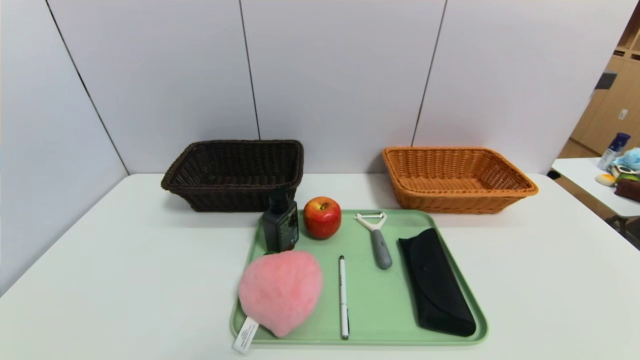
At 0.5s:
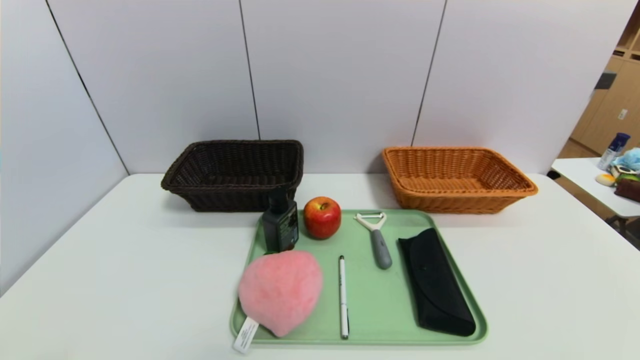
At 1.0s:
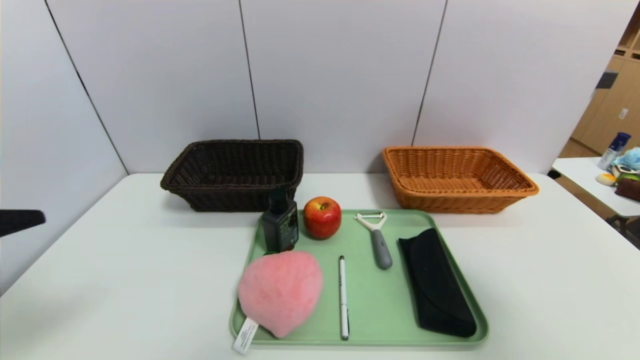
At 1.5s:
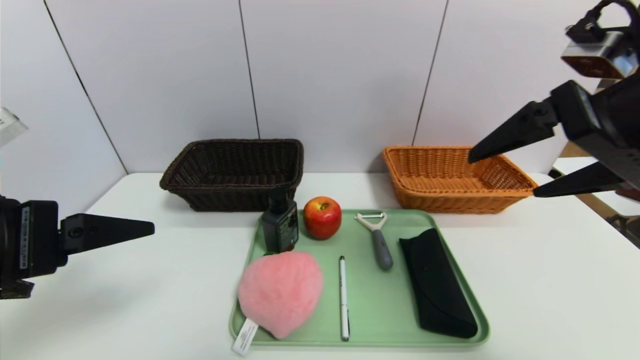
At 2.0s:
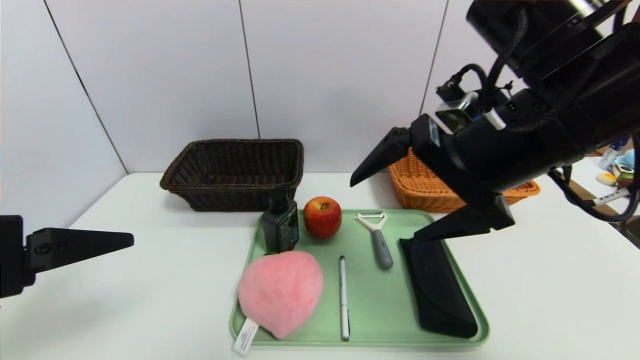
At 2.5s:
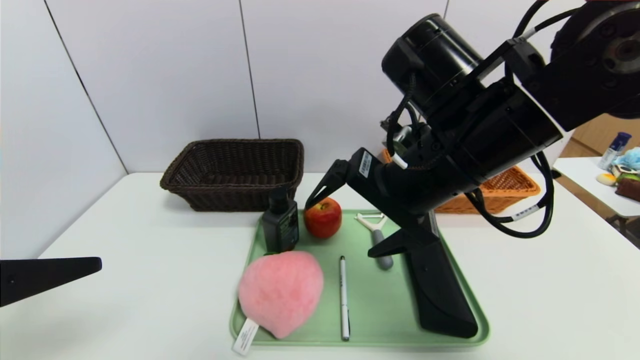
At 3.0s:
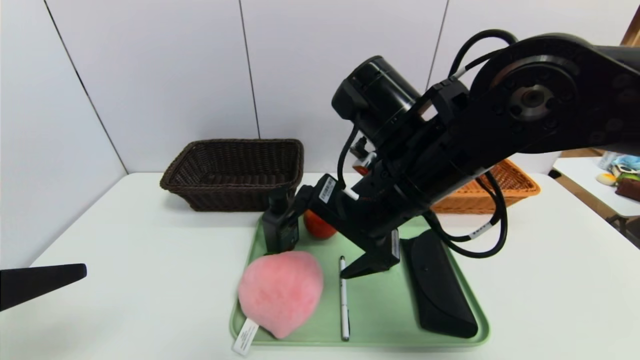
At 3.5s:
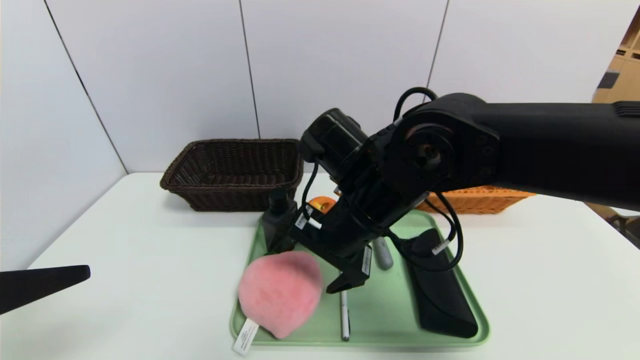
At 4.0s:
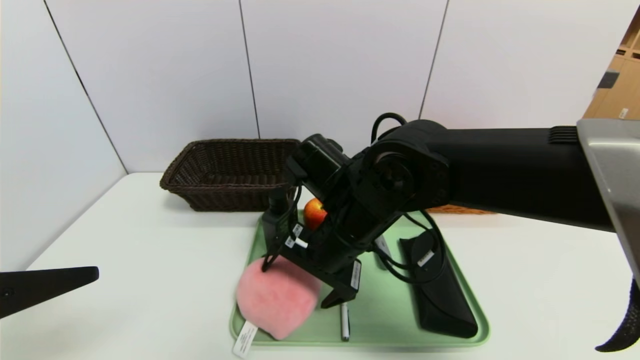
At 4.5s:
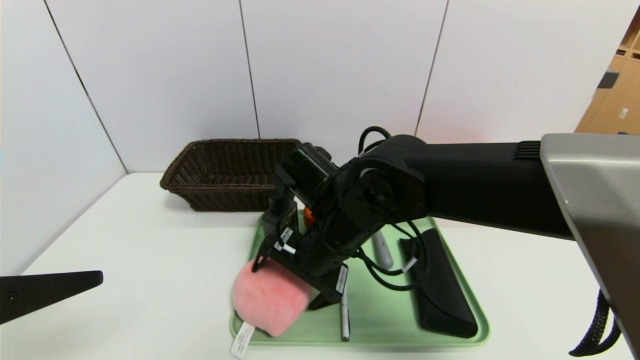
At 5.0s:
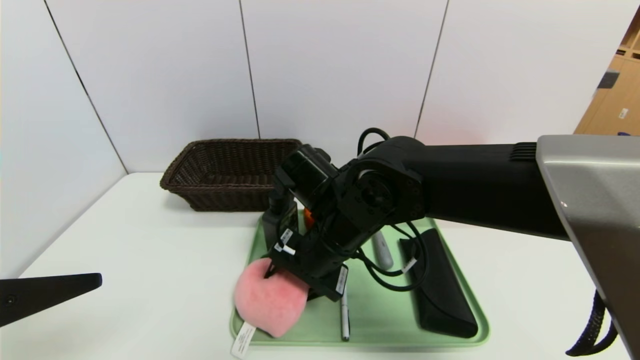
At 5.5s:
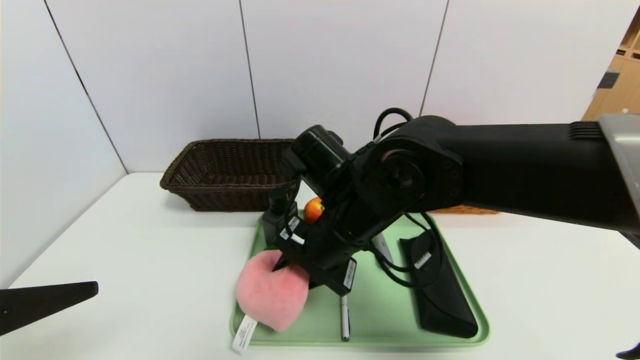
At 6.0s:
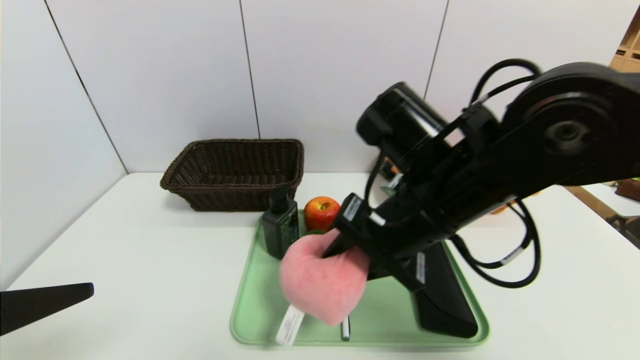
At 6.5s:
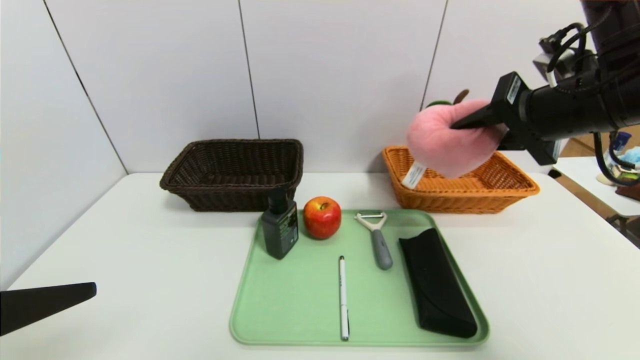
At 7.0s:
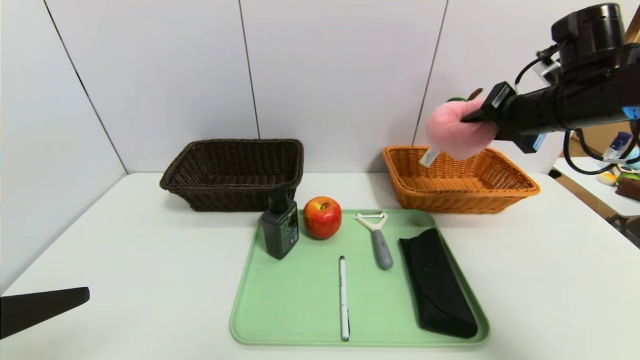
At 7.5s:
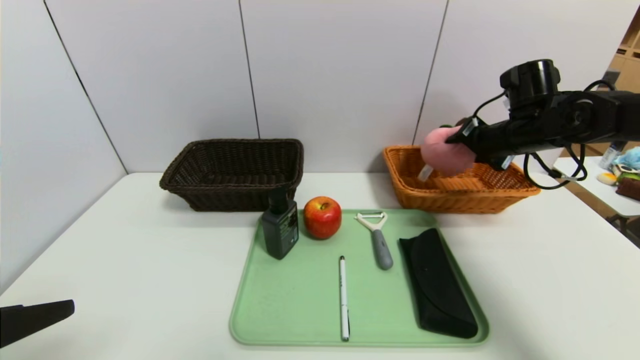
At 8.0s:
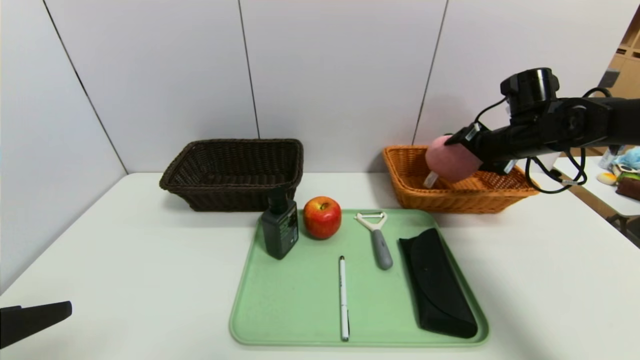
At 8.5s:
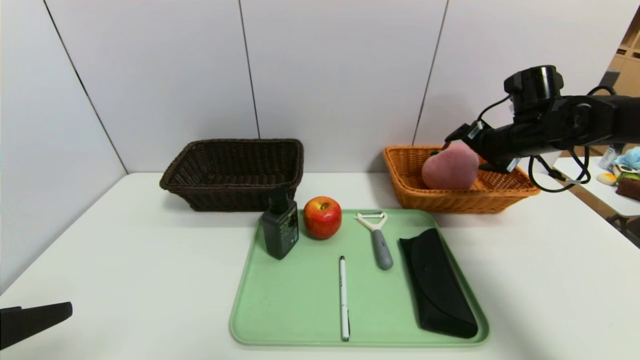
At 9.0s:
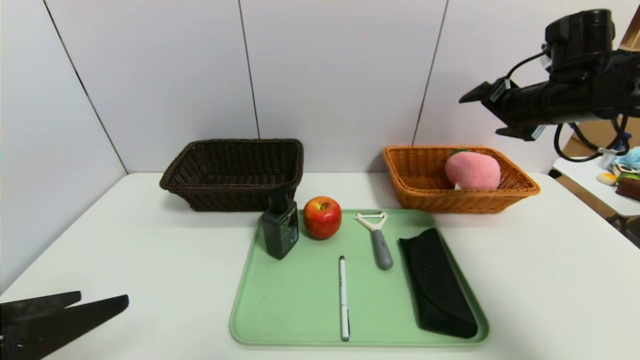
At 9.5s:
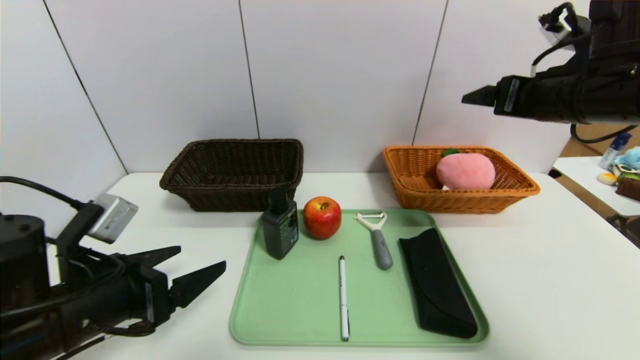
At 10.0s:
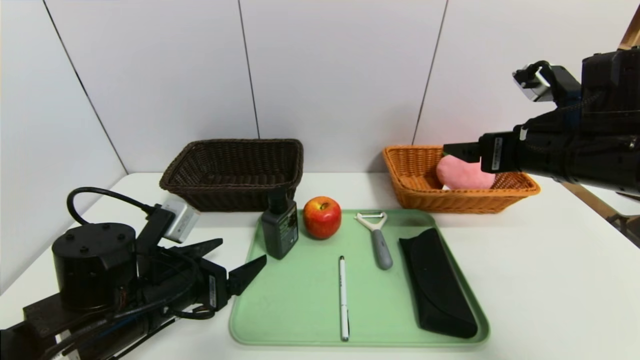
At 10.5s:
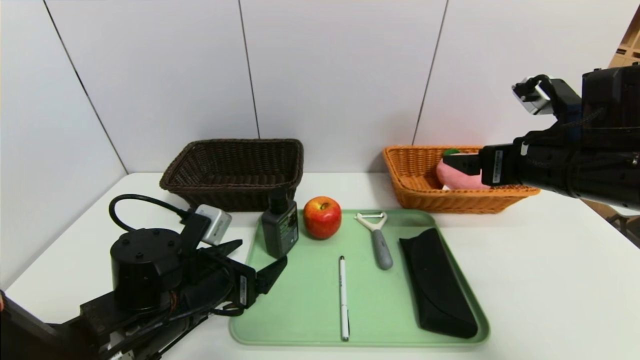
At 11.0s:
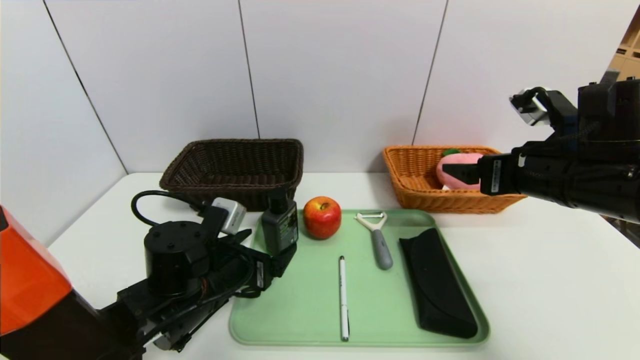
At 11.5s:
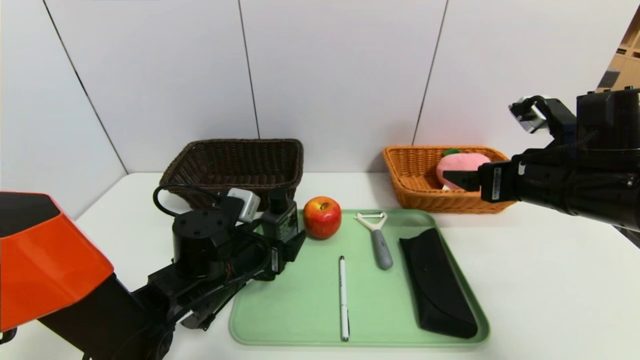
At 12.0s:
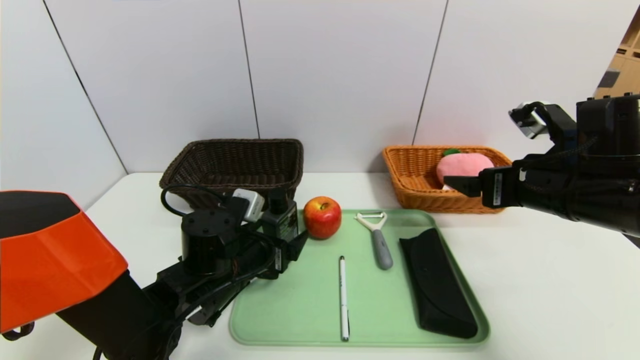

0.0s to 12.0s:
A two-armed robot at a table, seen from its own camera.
Task of the whole recording: place the food in the right basket with the right gripper, and place the non food items in the left basket with the left gripper.
Step, 0.0s to 8.5s: Grasp the peach doll and put it in the right basket.
0.0s to 2.0s: The left gripper travels upward and forward by some 25 cm. The right gripper goes some 40 cm upward, forward and to the left.
2.0s to 4.0s: The right gripper shifts approximately 20 cm downward and to the left.
4.0s to 6.0s: The right gripper travels to the right and upward by roughly 10 cm, and closes its fingers.
6.0s to 8.0s: The right gripper shifts roughly 30 cm to the right and forward, and opens its fingers.
8.0s to 10.0s: The left gripper goes approximately 25 cm forward, downward and to the right. Meanwhile the right gripper heads backward, covering roughly 15 cm.
10.0s to 12.0s: The left gripper goes some 10 cm to the right and forward.

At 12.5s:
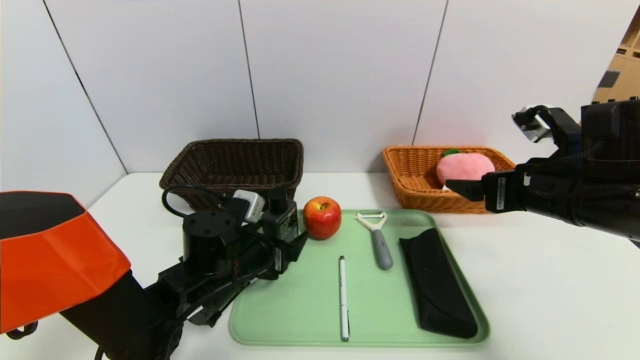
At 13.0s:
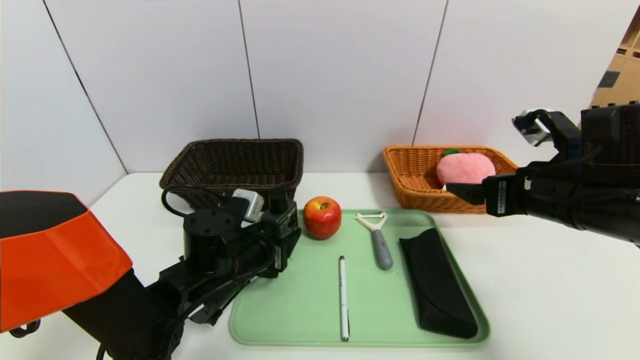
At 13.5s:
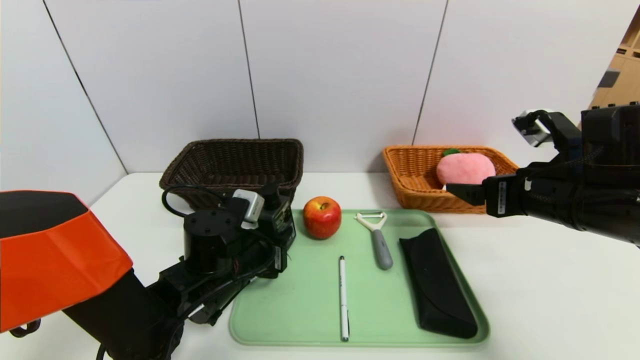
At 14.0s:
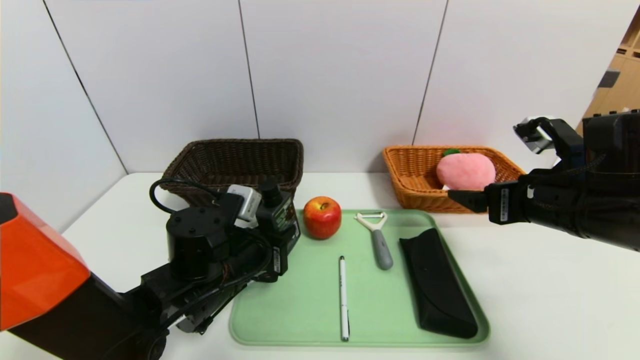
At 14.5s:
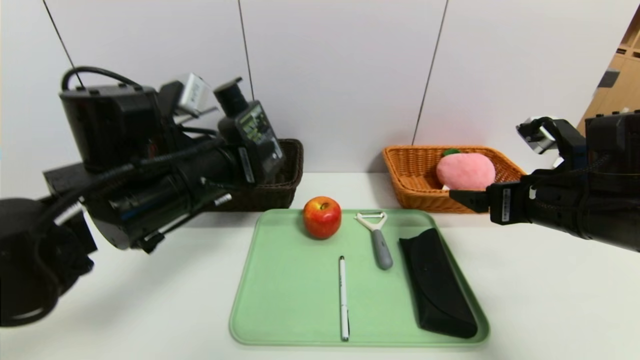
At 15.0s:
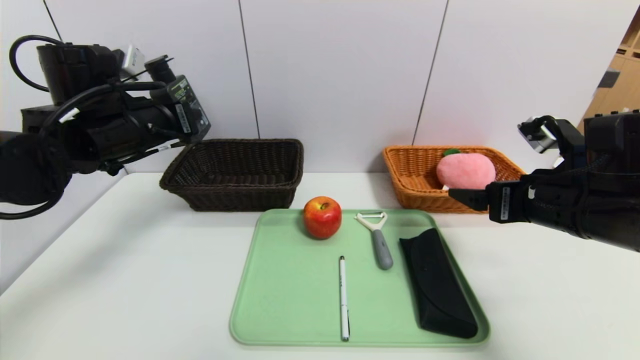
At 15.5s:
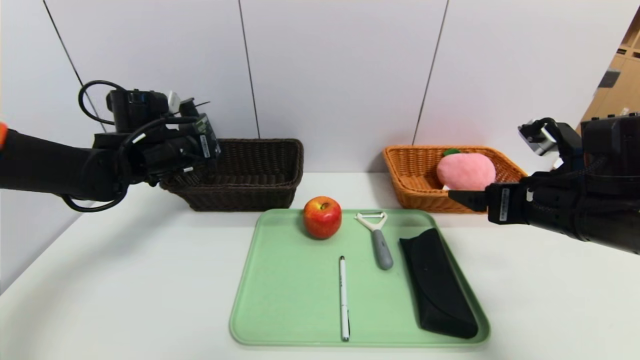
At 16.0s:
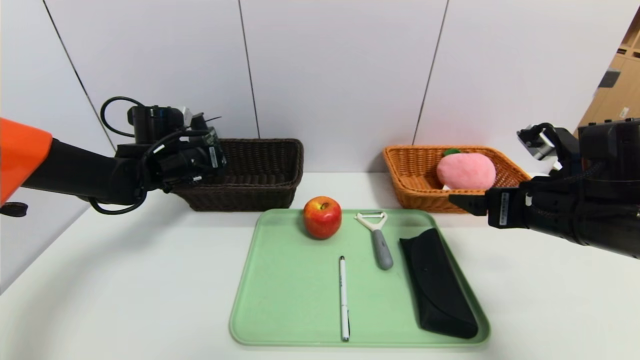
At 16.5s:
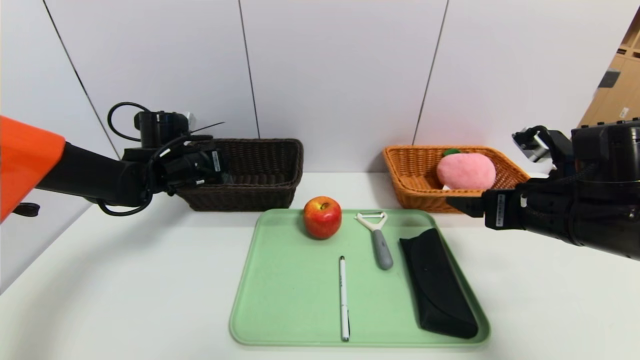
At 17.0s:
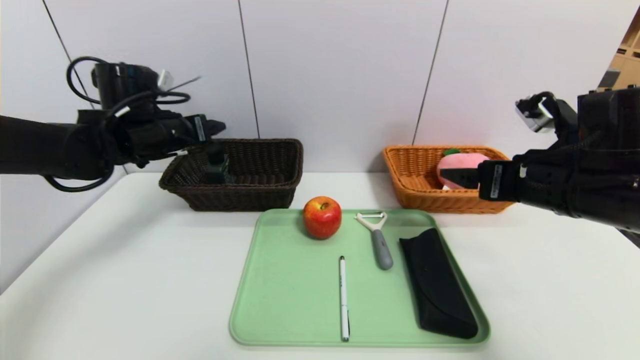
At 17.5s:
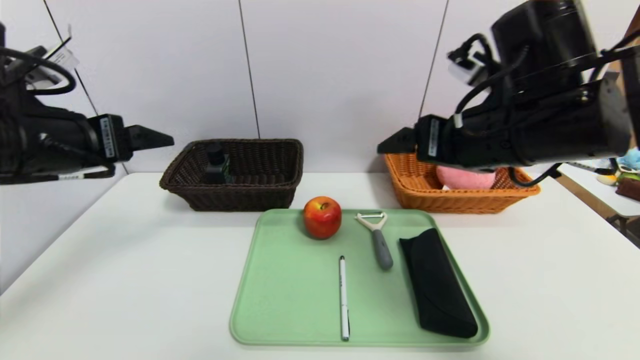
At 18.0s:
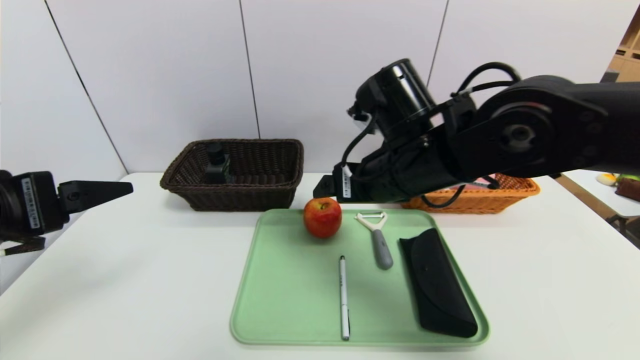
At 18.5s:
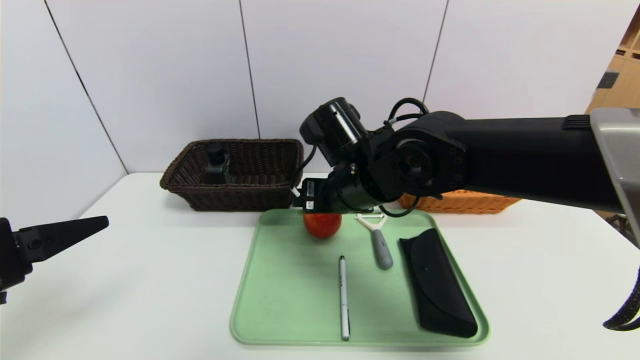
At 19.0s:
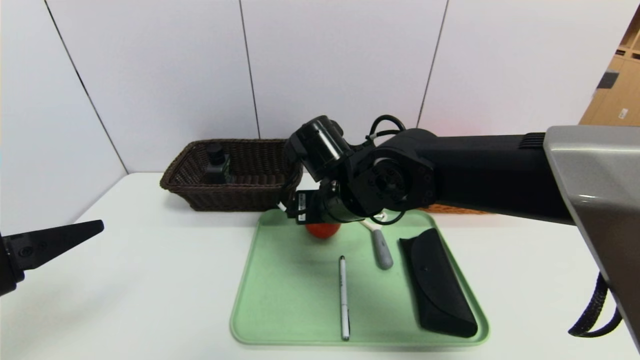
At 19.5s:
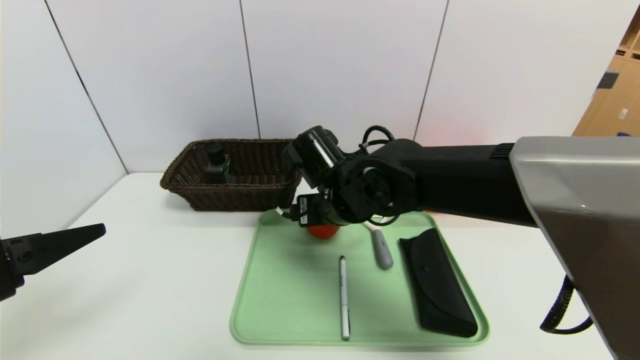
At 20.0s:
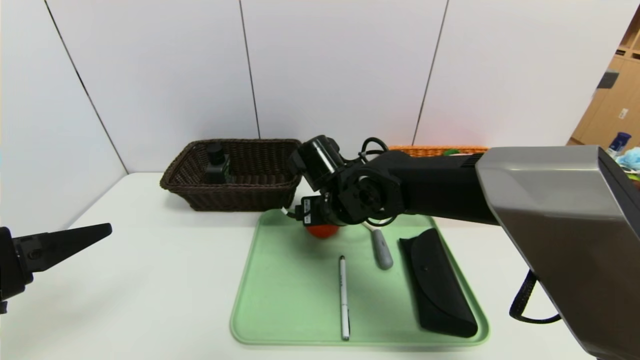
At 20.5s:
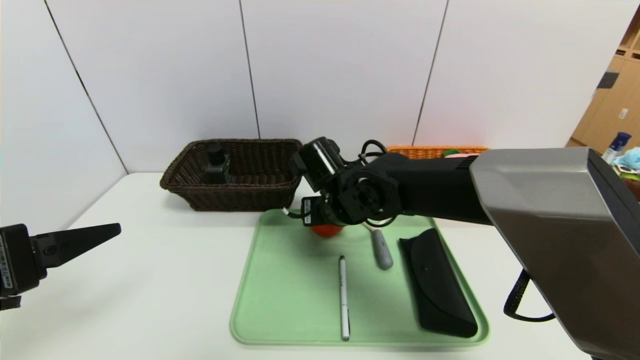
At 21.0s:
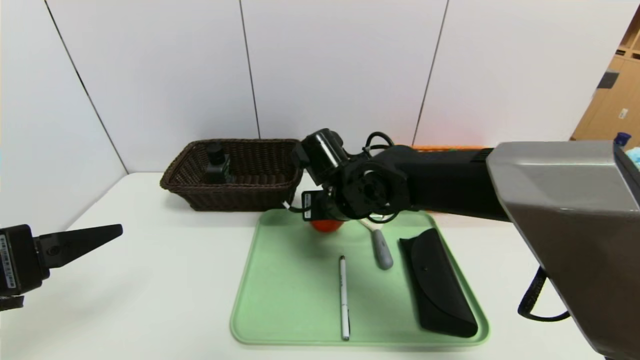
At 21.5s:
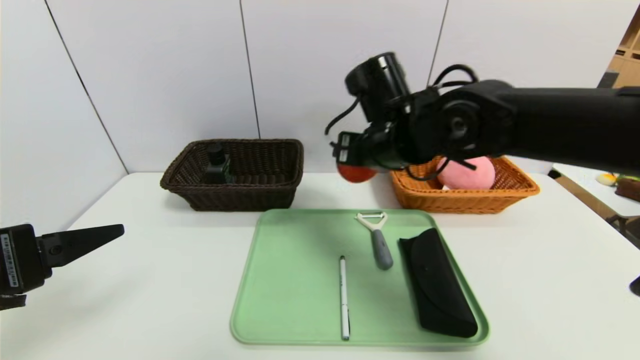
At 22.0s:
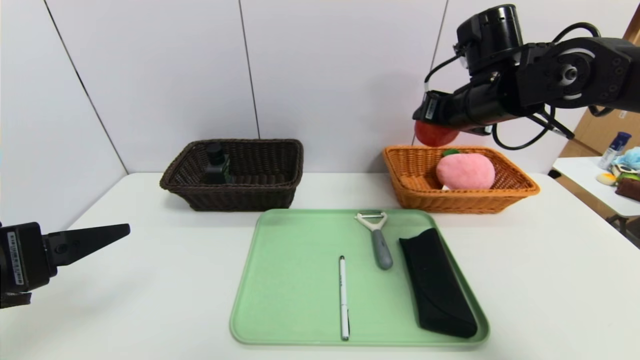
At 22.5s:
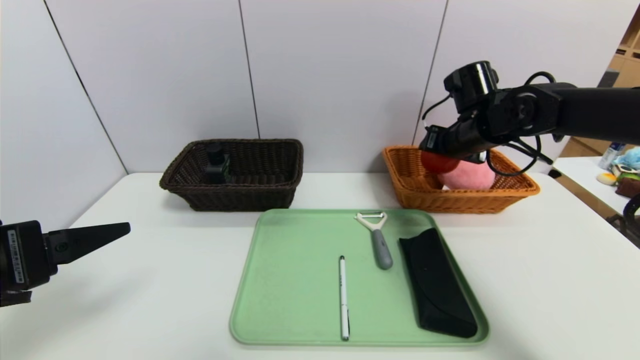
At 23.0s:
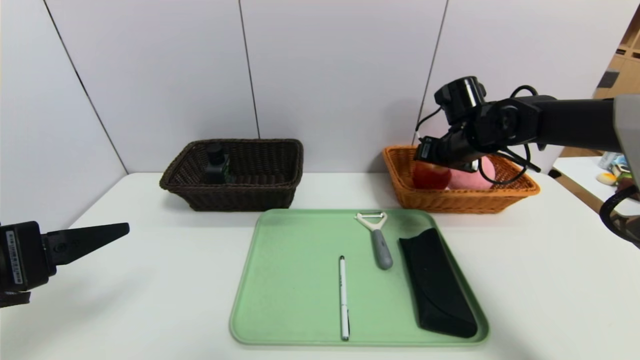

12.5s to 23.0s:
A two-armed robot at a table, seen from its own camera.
Task of the whole recording: place the food in the right basket with the right gripper, and place the non food items in the left basket with the left gripper.
Step, 12.5s to 16.5s: Grasp the hard cleanser and put it in the left basket.
12.5s to 14.5s: The left gripper shifts roughly 15 cm upward, and closes.
14.5s to 16.5s: The left gripper travels forward, to the left and downward by about 20 cm, and opens up.
16.5s to 19.0s: The right gripper travels to the left by some 25 cm, while the left gripper heads backward, covering some 30 cm.
19.0s to 21.0s: The grippers stay close to where they were, moving slightly.
21.0s to 23.0s: The right gripper shifts some 25 cm to the right and forward.
